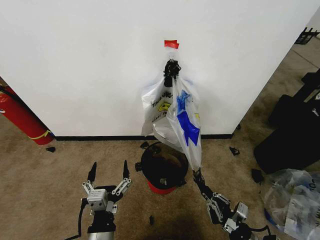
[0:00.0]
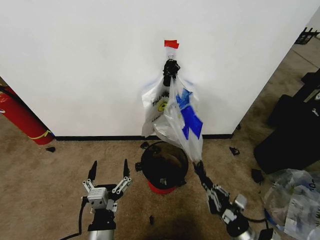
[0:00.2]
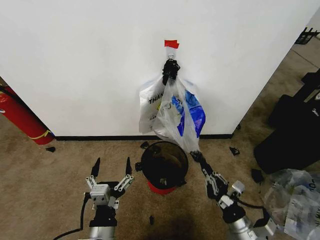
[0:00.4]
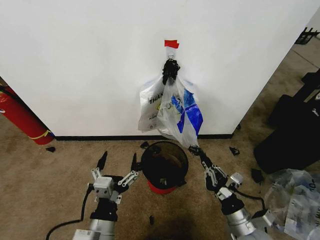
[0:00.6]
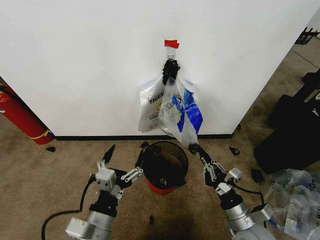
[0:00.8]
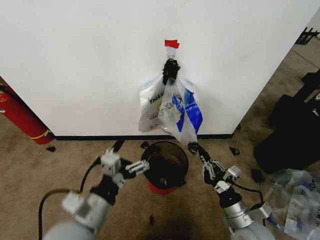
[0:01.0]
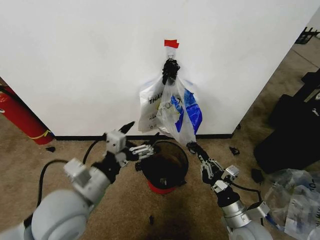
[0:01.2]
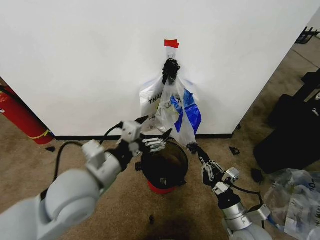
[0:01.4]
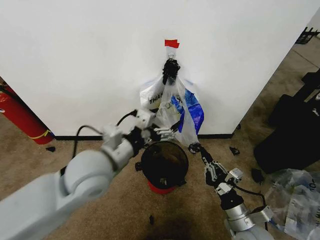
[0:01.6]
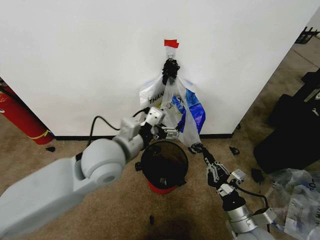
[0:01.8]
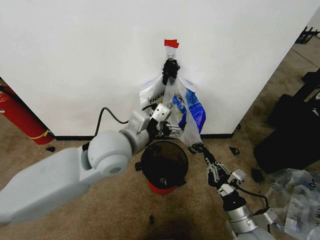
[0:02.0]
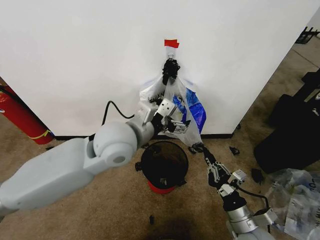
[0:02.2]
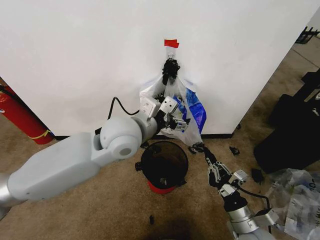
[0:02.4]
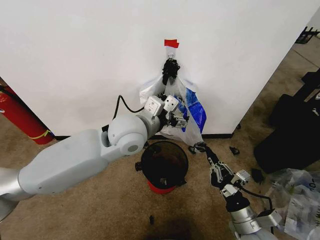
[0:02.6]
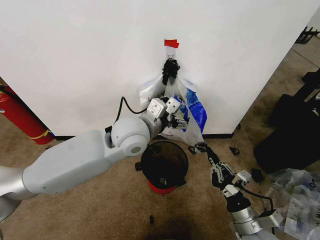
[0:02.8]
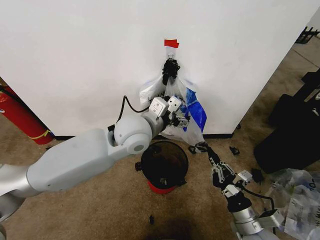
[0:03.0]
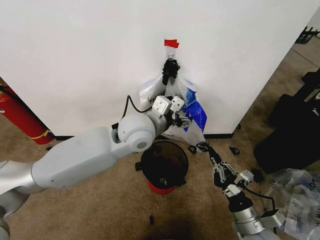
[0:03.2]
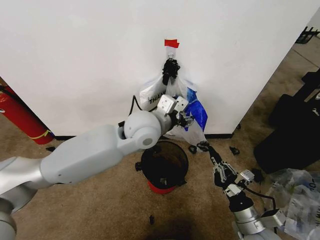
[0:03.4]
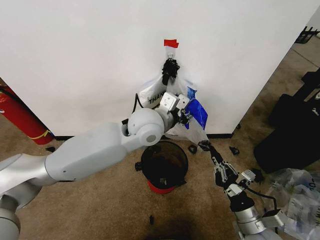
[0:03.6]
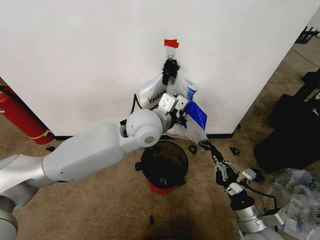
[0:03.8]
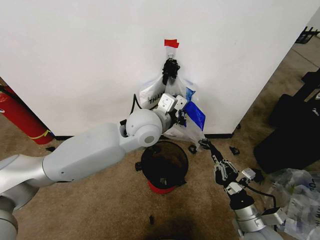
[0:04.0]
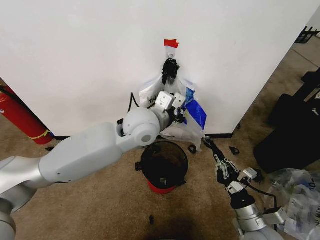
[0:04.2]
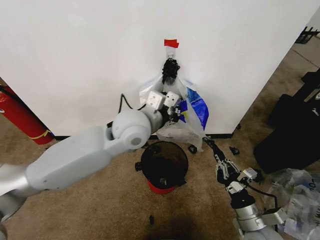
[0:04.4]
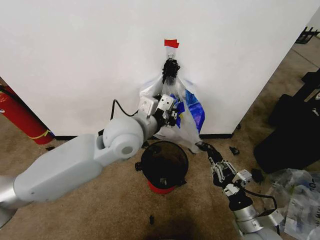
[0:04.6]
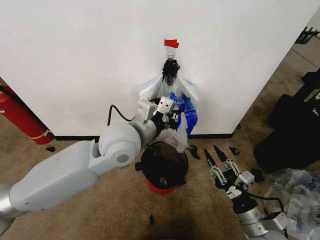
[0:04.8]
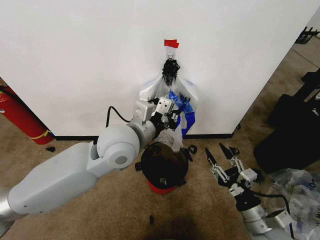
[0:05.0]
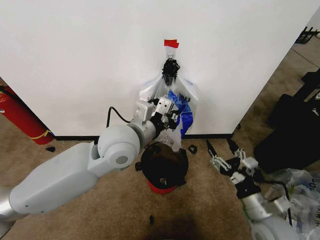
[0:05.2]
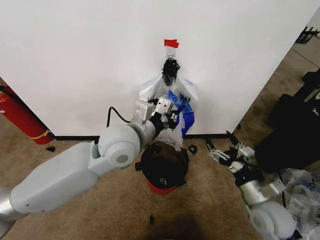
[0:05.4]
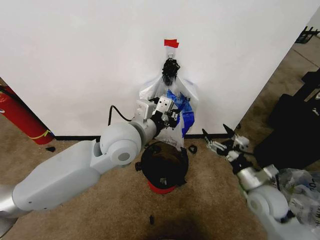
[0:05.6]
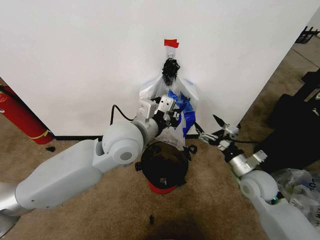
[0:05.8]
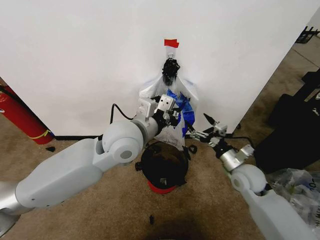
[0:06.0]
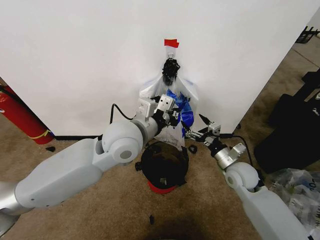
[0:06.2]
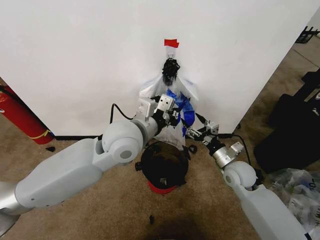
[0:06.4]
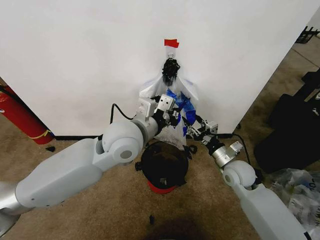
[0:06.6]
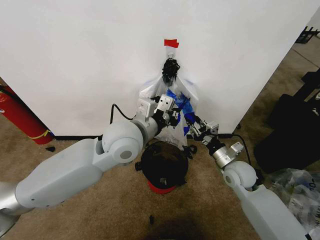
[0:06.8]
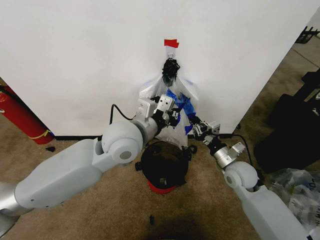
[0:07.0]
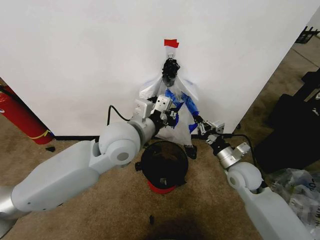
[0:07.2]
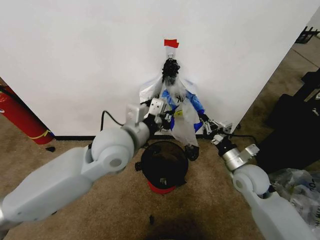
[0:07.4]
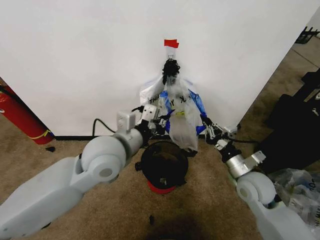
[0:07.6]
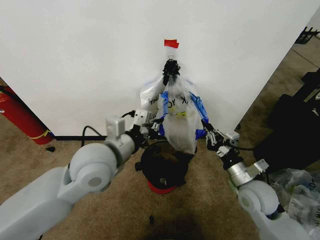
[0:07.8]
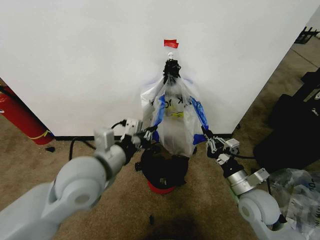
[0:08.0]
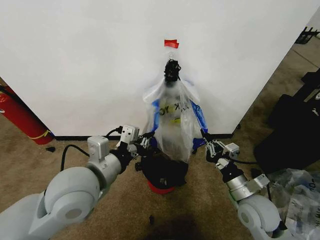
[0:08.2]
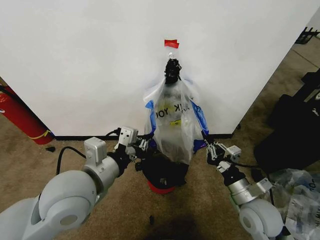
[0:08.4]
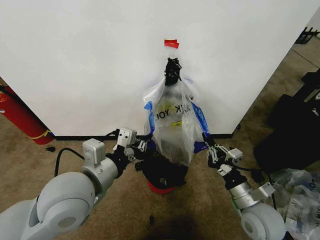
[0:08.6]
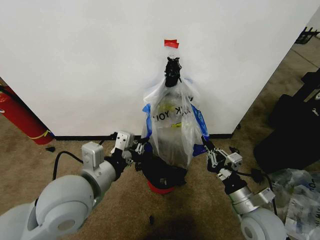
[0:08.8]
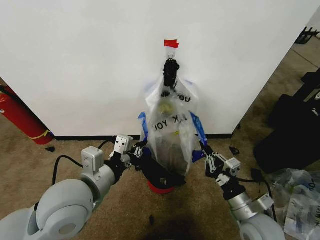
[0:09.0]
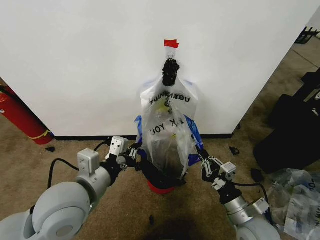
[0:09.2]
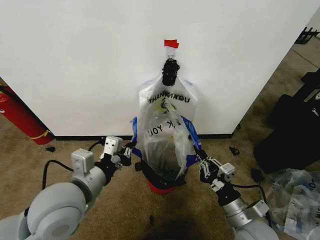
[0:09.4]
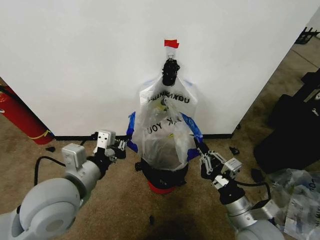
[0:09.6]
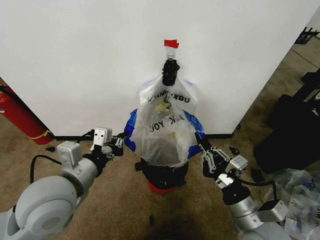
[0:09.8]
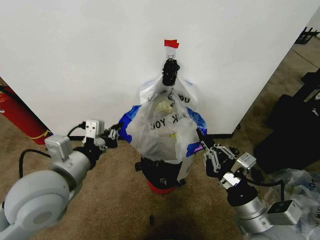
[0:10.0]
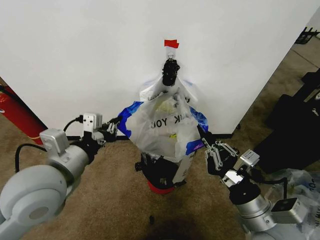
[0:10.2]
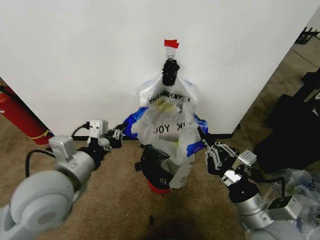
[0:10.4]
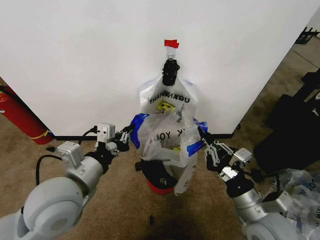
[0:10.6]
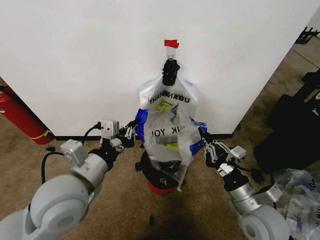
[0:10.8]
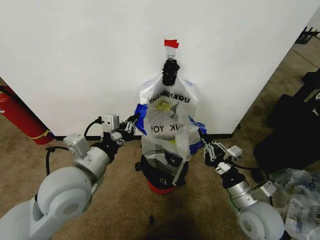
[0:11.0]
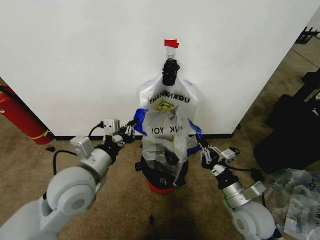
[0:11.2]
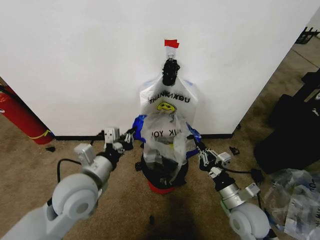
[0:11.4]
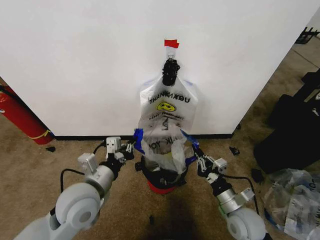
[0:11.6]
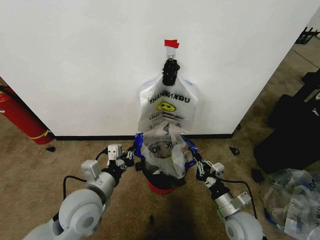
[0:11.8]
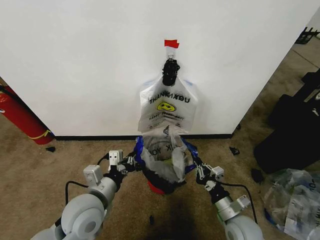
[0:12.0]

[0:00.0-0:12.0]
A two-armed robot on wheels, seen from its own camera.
Task of the whole recording: Pick up the garbage bag from the wall and place it over the trash bin.
0:00.0 to 0:01.6: The right gripper shifts some 5 cm upward. The left gripper moves upward and forward, roughly 25 cm.
0:01.6 to 0:03.0: The left gripper moves forward and to the right, about 15 cm.
0:03.0 to 0:04.4: The left gripper closes its fingers.
0:04.4 to 0:06.0: The right gripper moves forward, some 15 cm, and opens up.
0:06.0 to 0:07.6: The left gripper moves about 5 cm. Meanwhile the right gripper closes its fingers.
0:07.6 to 0:09.0: The right gripper travels backward by about 10 cm. The left gripper is displaced backward and to the left by some 10 cm.
0:09.0 to 0:10.4: The right gripper shifts about 10 cm upward.
0:10.4 to 0:12.0: The grippers both shift downward by about 15 cm.

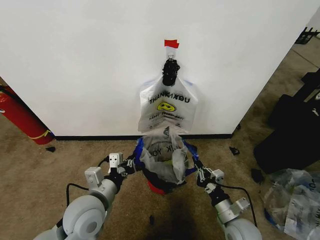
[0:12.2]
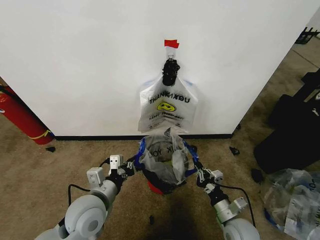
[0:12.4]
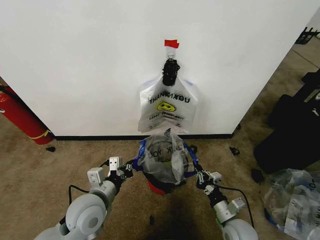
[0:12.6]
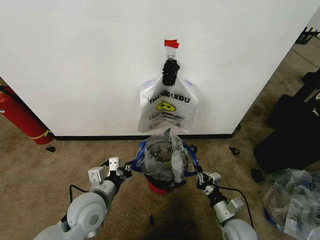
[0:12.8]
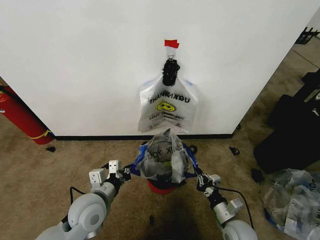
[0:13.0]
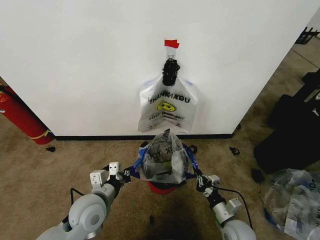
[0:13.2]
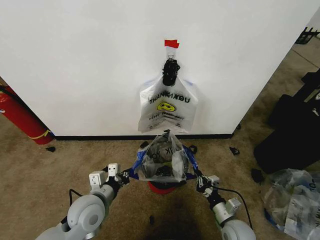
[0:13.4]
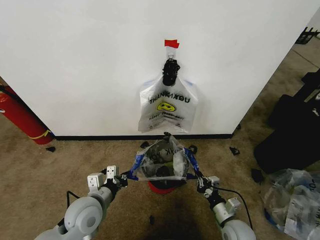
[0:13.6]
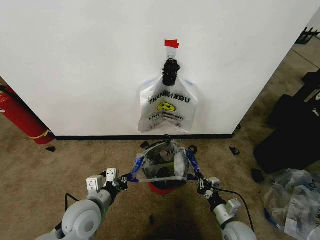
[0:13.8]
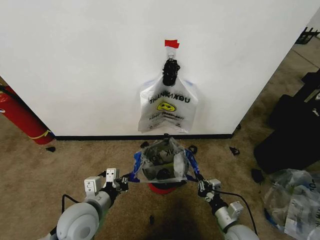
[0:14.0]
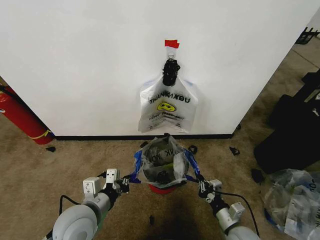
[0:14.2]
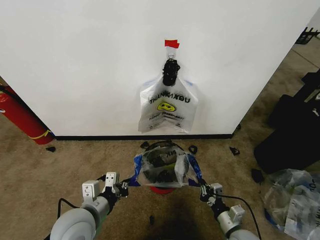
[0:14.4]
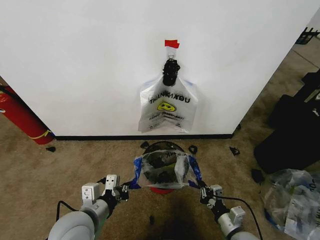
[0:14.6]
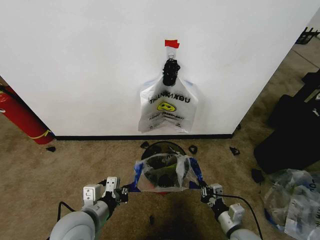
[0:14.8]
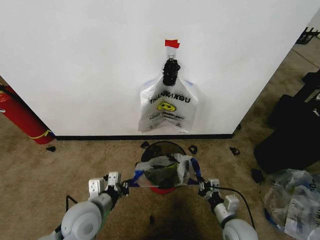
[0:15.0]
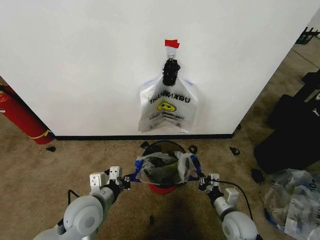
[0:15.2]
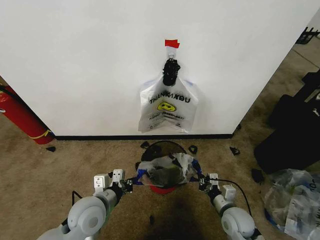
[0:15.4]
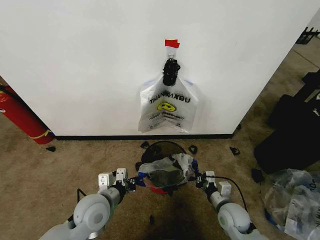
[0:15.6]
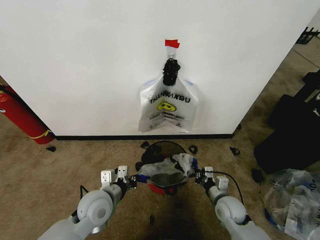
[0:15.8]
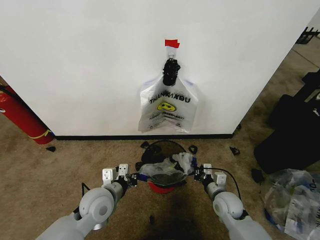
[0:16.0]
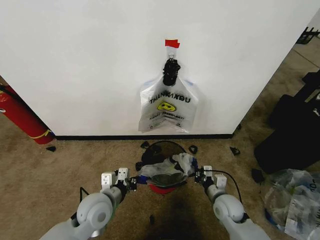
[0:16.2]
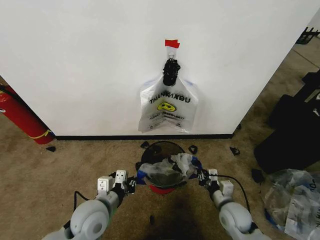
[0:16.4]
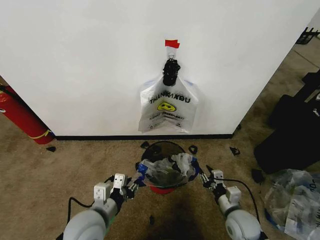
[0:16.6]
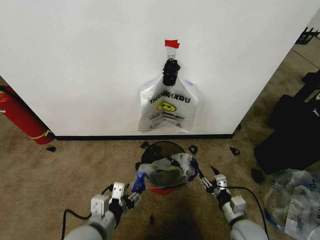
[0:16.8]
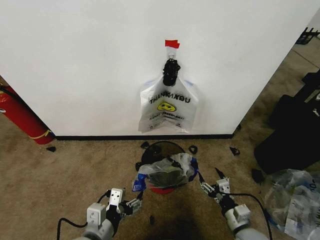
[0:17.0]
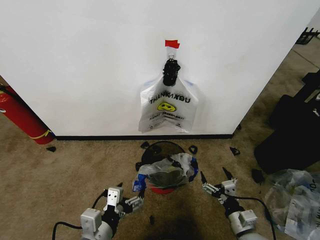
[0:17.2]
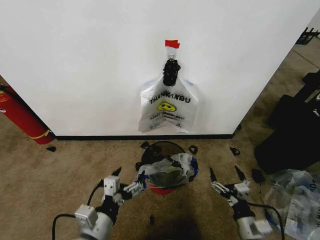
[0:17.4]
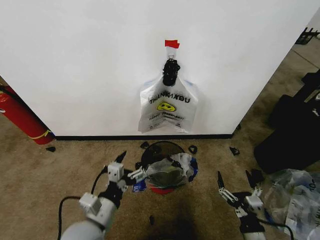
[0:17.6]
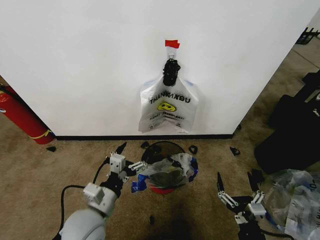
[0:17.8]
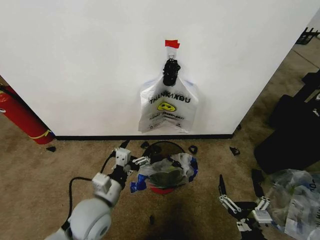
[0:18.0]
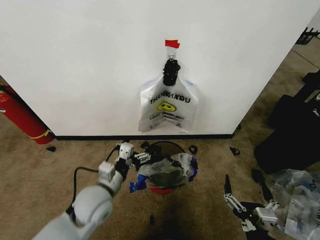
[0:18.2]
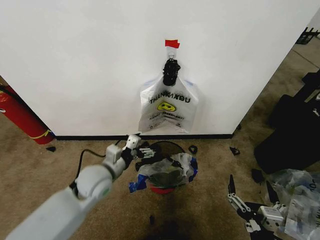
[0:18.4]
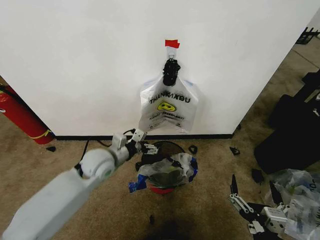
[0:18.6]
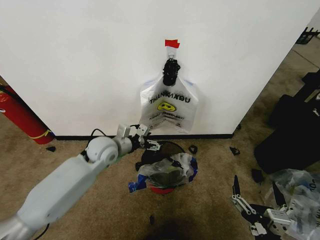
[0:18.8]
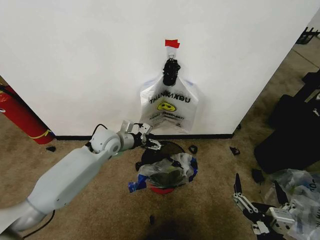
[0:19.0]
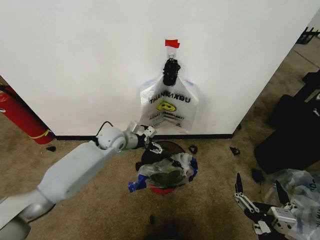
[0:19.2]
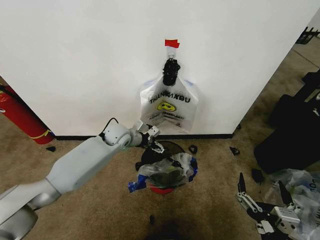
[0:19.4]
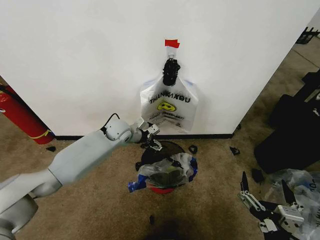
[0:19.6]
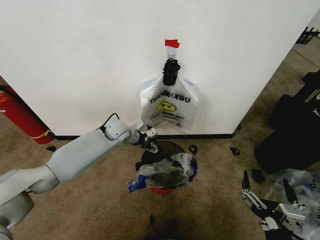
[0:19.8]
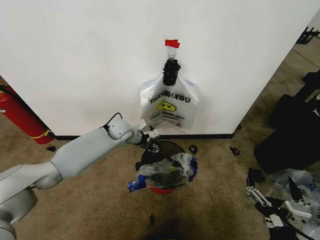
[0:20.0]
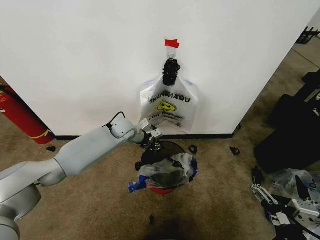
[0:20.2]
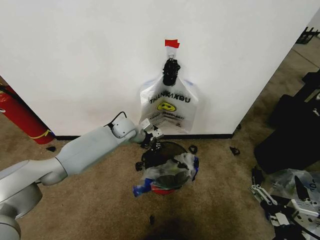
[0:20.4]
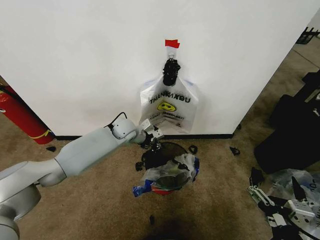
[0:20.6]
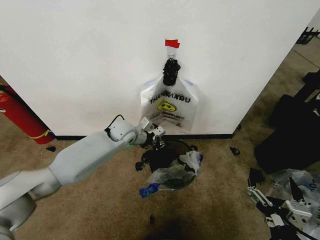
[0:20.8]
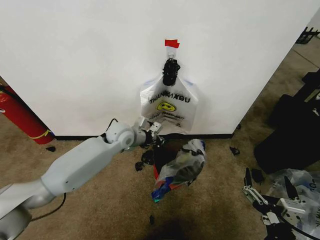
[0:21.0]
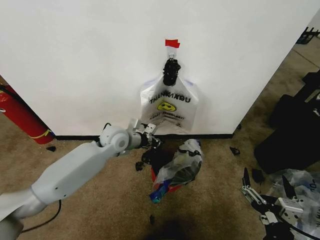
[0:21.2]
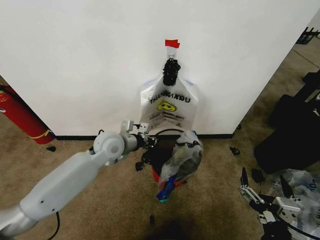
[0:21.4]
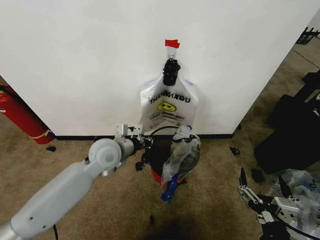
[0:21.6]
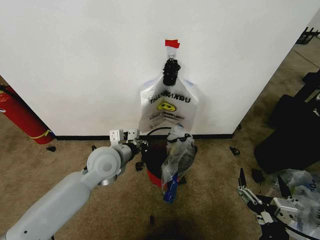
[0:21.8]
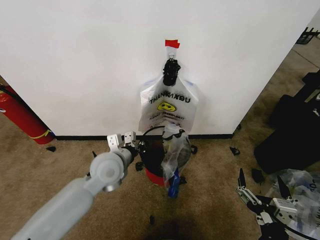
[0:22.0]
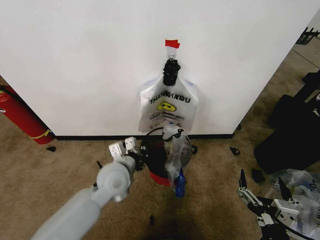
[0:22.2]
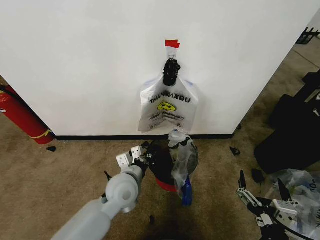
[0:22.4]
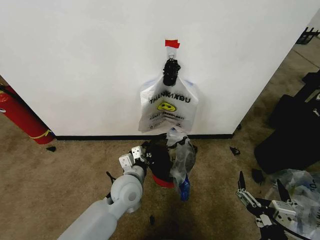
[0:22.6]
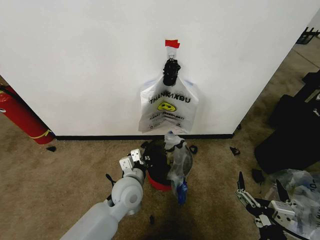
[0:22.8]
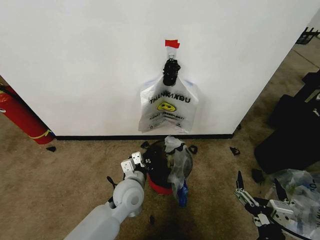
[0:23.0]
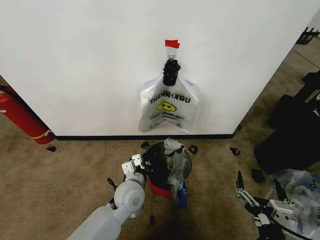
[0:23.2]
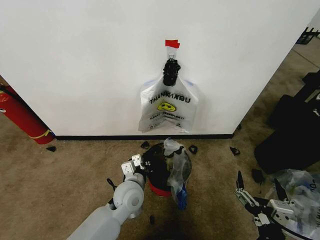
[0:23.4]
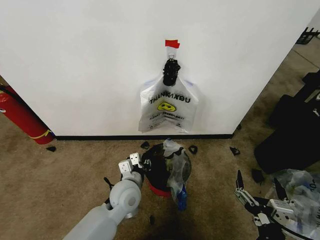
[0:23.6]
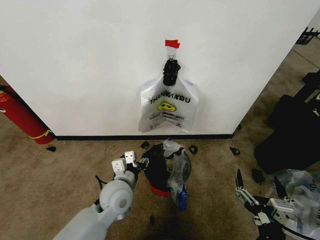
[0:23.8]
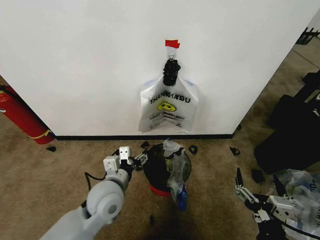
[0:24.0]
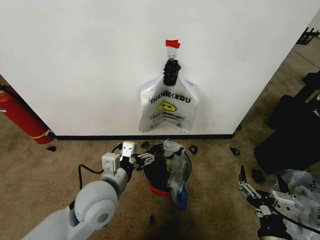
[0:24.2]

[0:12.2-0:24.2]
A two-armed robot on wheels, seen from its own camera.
Task of the whole recording: Pick up the garbage bag from the wall and place it over the trash bin.
0:12.2 to 0:13.8: The right gripper heads downward, covering roughly 5 cm.
0:13.8 to 0:15.2: The grippers make only small movements.
0:15.2 to 0:16.6: The right gripper opens up. Meanwhile the left gripper opens.
0:16.6 to 0:18.2: The right gripper heads backward and upward, covering some 20 cm, and opens up. The left gripper goes some 5 cm forward, and opens.
0:18.2 to 0:19.8: The left gripper is displaced forward by roughly 25 cm.
0:19.8 to 0:21.2: The left gripper shifts some 5 cm backward, and closes up.
0:21.2 to 0:22.6: The left gripper shifts about 15 cm backward and downward.
0:22.6 to 0:24.2: The left gripper goes approximately 10 cm upward and backward, and opens.
